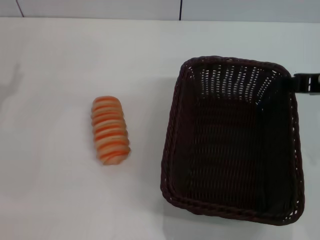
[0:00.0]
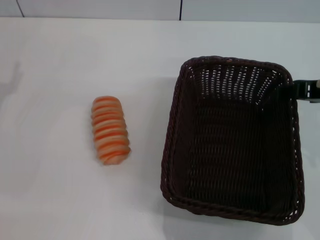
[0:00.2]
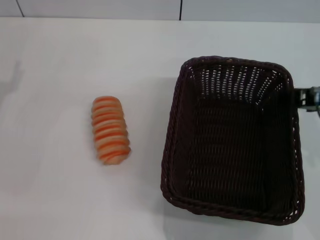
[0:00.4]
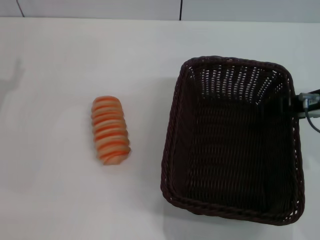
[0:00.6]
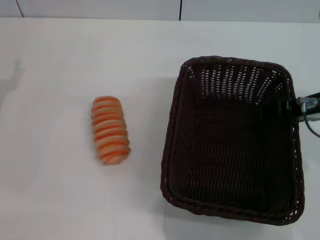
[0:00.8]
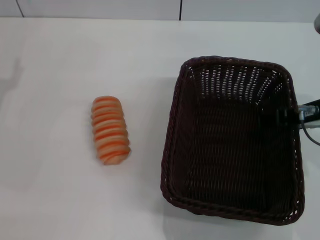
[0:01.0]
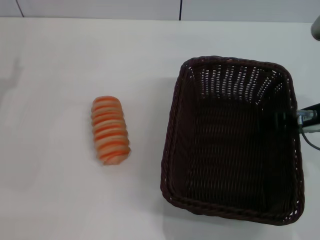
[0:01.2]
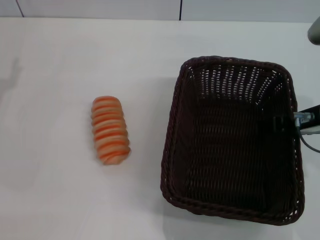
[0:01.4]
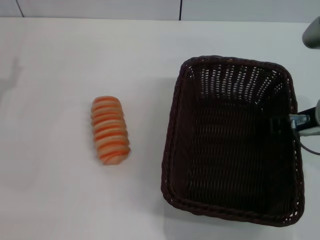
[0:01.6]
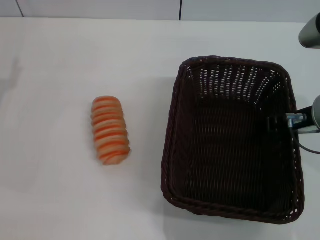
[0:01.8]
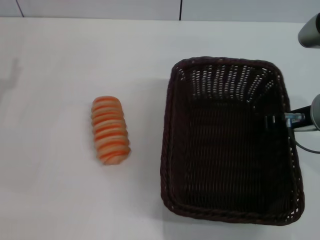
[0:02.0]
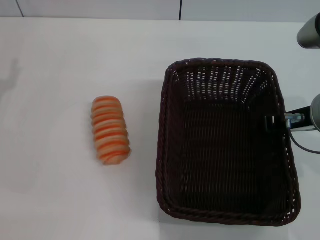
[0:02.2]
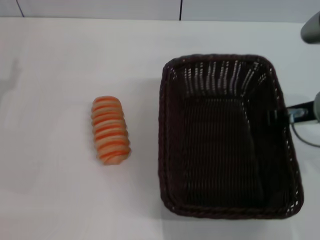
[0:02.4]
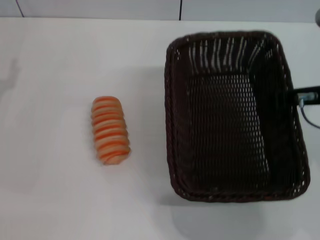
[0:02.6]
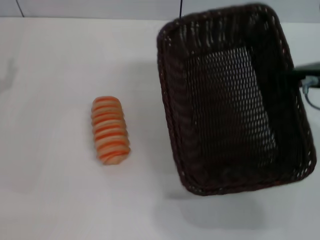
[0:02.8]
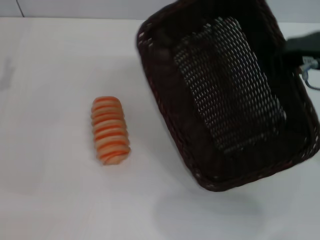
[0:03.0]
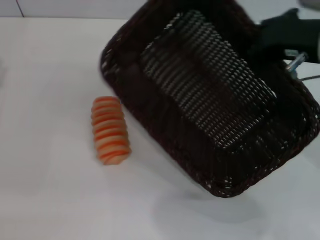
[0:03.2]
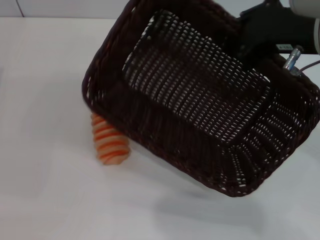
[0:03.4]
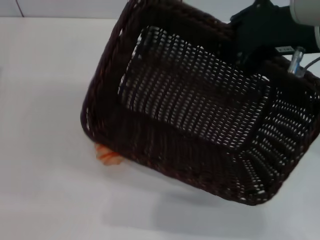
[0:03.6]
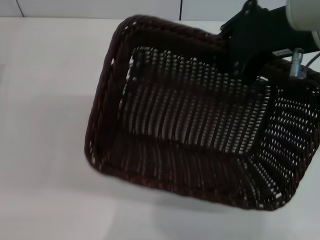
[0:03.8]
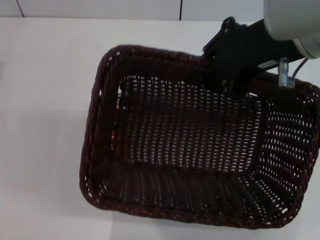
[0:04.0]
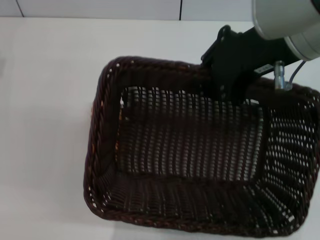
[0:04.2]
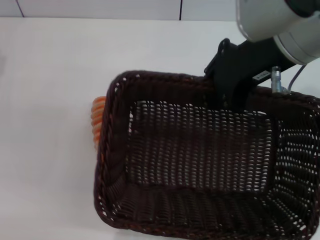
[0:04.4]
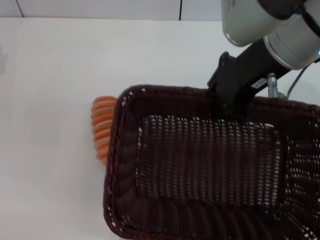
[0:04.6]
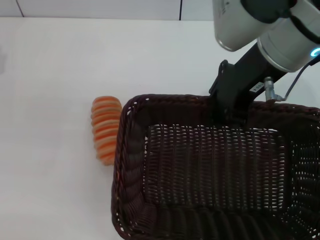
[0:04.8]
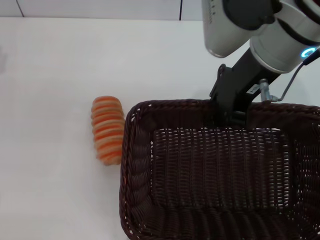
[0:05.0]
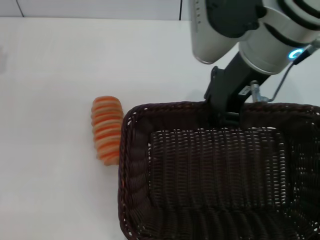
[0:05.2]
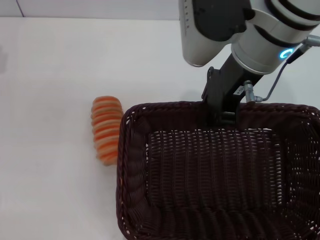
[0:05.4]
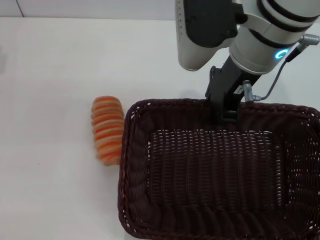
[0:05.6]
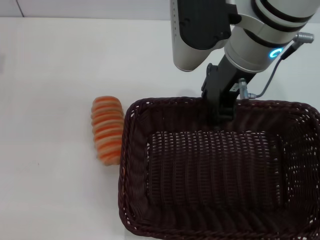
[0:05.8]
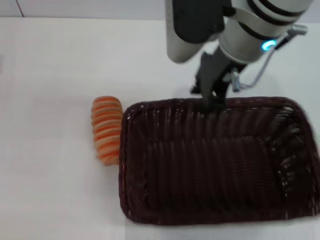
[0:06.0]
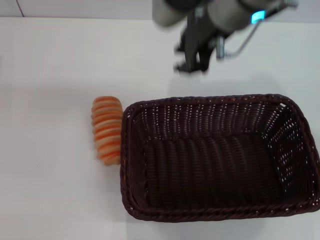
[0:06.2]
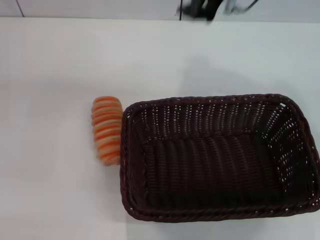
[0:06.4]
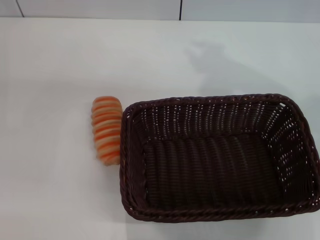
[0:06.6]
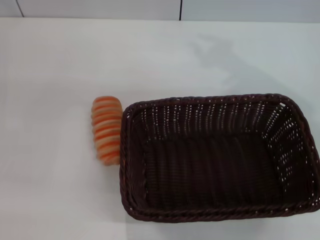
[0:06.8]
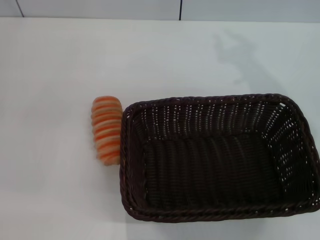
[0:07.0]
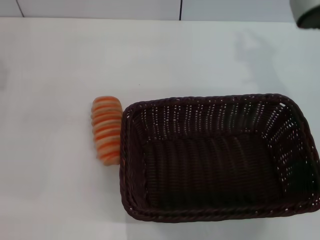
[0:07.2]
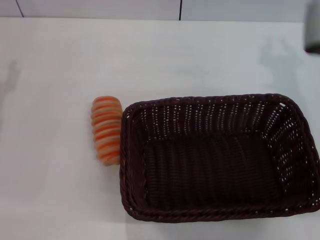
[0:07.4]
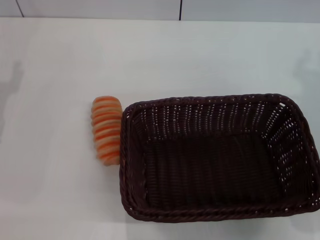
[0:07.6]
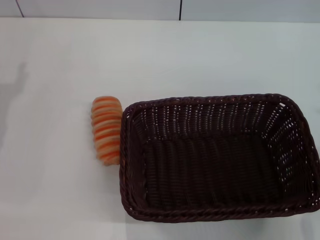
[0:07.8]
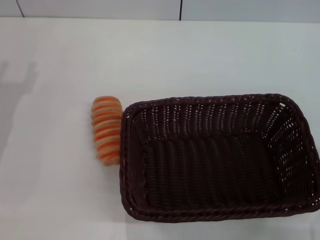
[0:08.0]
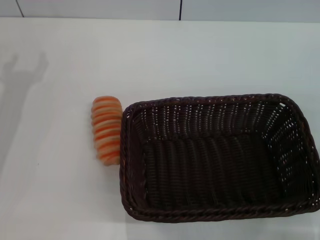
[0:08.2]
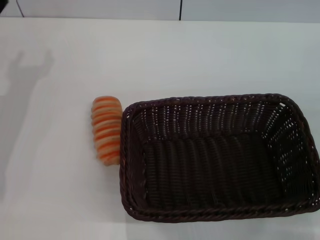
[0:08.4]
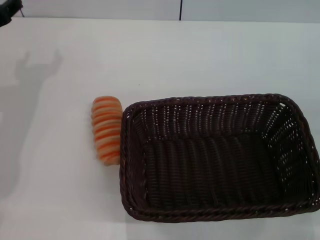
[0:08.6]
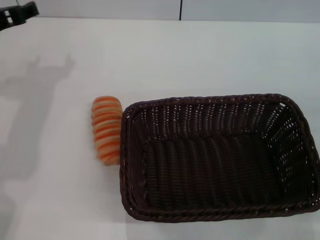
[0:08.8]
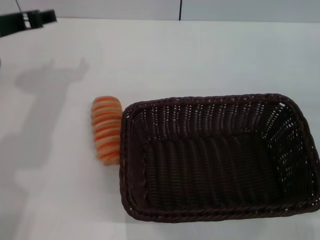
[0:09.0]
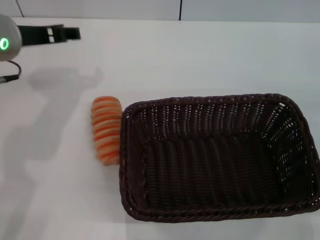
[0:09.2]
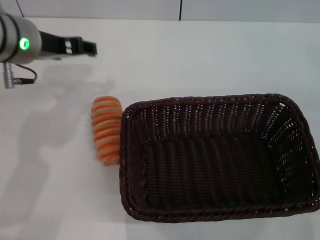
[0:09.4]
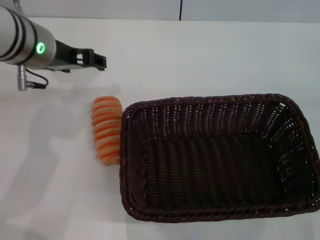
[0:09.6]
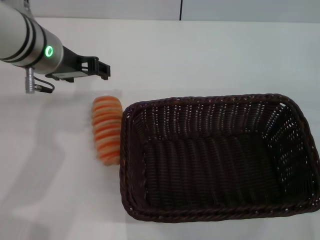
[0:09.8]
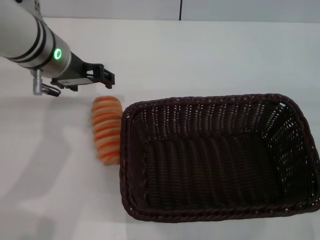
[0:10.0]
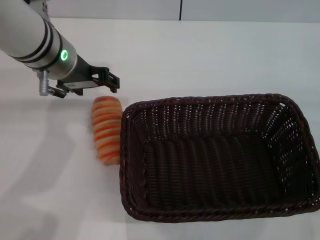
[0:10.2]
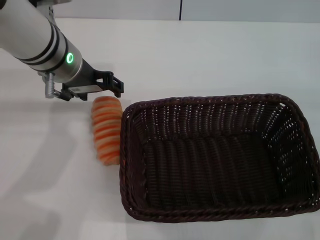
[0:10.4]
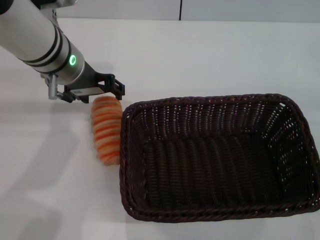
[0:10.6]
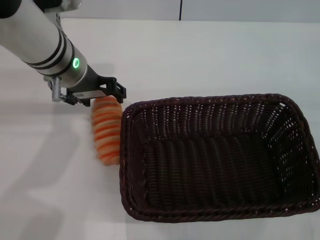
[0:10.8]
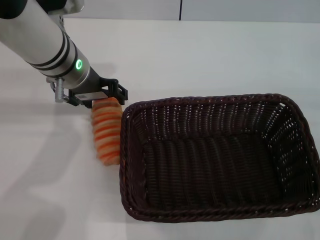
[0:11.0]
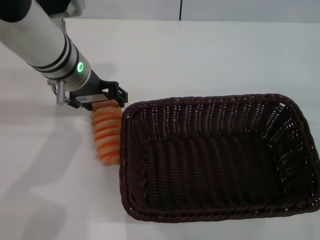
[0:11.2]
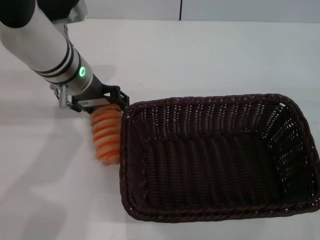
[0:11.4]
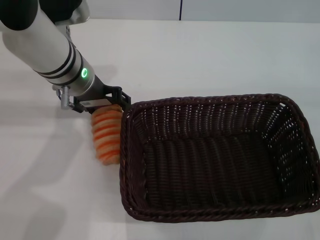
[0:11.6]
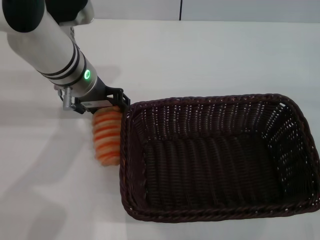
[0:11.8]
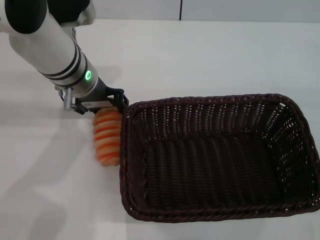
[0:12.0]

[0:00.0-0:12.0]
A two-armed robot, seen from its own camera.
Step, 0:00.0 to 0:02.8: Pick up the dark basket with the right gripper.
Step, 0:03.2 to 0:06.4: Place the dark basket in the center of view with the right gripper.
0:00.0 to 0:01.6: The right gripper travels downward by some 5 cm.
0:01.6 to 0:03.0: The right gripper heads upward, covering some 5 cm, and closes up.
0:03.0 to 0:04.4: The right gripper goes about 10 cm to the left and upward.
0:04.4 to 0:06.0: The right gripper moves to the left, some 5 cm.
0:06.0 to 0:07.6: The right gripper moves to the right, downward and backward, approximately 20 cm.
0:07.6 to 0:09.0: The right gripper goes about 10 cm to the right and downward, while the left gripper shifts about 15 cm upward, to the right and forward.
0:09.0 to 0:10.4: The left gripper goes roughly 10 cm to the right.
0:10.4 to 0:12.0: The grippers move only a little.

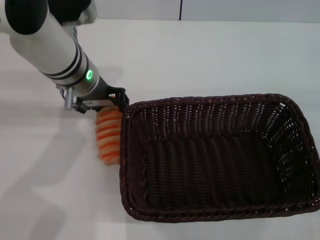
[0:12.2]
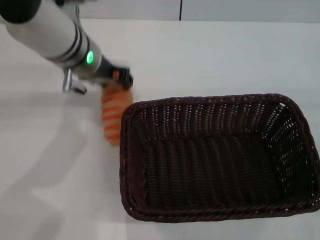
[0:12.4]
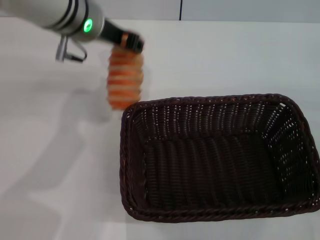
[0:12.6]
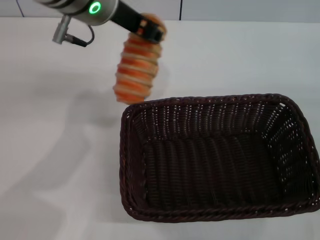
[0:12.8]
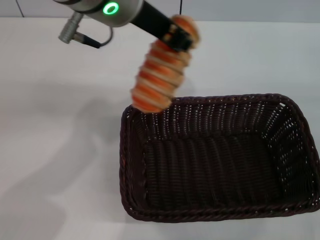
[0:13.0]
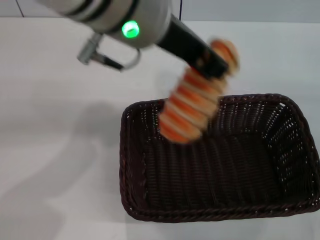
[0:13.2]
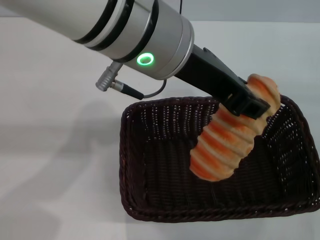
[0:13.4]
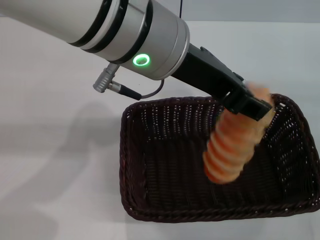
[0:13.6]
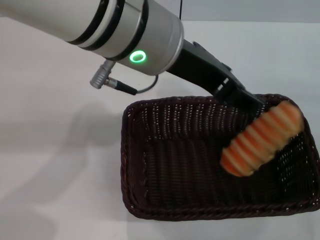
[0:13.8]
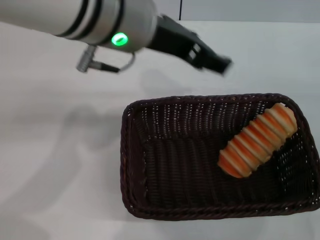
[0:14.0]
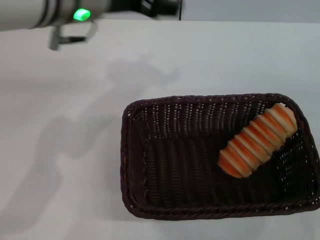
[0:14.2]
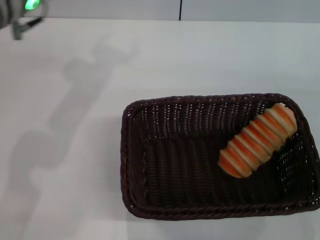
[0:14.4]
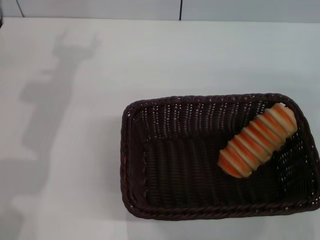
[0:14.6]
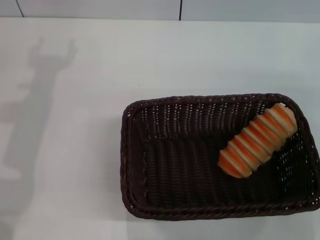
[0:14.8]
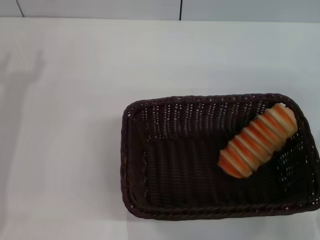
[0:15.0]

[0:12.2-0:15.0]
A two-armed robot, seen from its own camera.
Step, 0:12.8 to 0:13.8: Place the long bread into the dark basket with the left gripper.
0:12.2 to 0:13.6: The left gripper is displaced upward, backward and to the right by some 20 cm.
0:13.6 to 0:15.0: The right gripper travels to the left by some 5 cm; the left gripper goes roughly 30 cm to the left and downward, and opens up.
